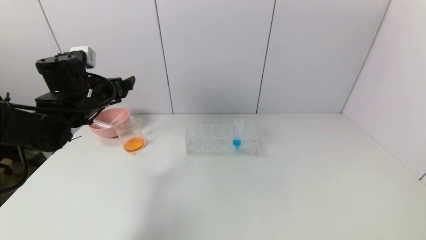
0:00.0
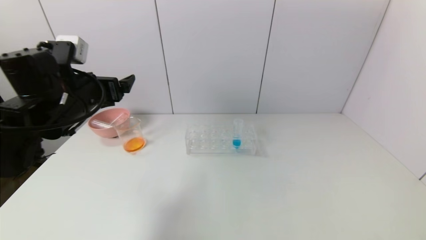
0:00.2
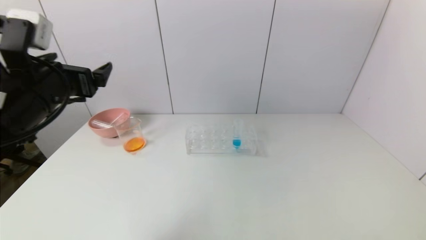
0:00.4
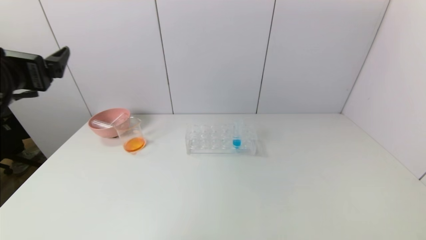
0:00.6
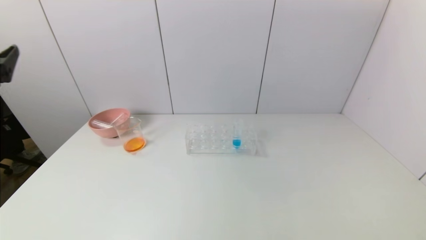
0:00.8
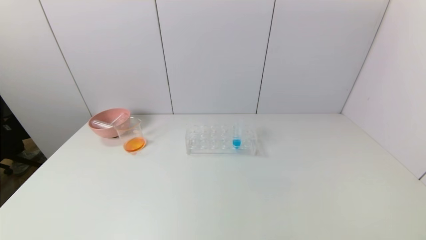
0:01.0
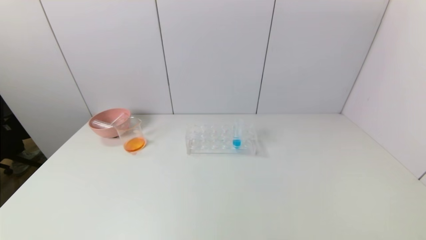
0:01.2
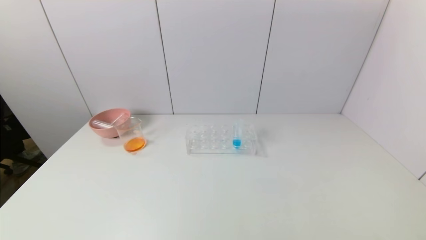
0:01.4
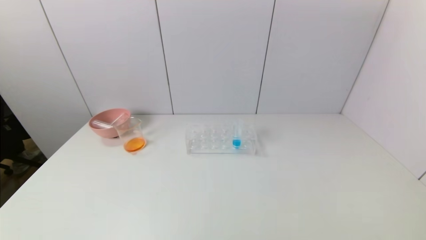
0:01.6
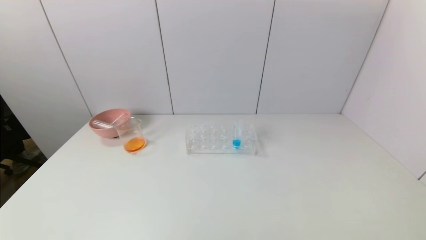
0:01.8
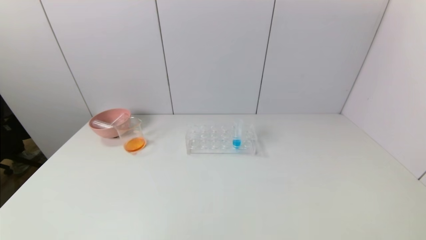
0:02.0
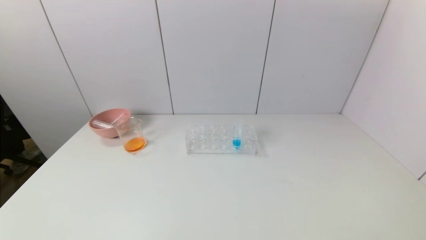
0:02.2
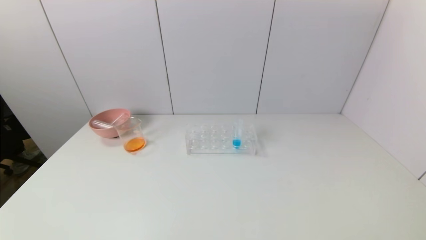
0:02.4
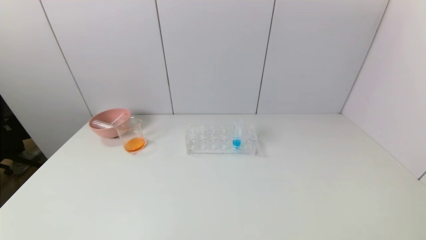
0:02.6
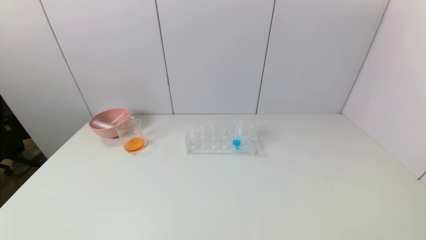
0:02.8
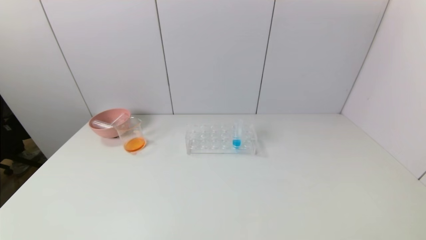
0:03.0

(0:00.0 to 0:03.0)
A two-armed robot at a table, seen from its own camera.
Task of the whole recording: pick up the test tube with yellow pigment and the test tube with red pigment by grippers and pour them into the beaker.
0:00.0 - 0:01.6: The left gripper goes about 40 cm backward.
